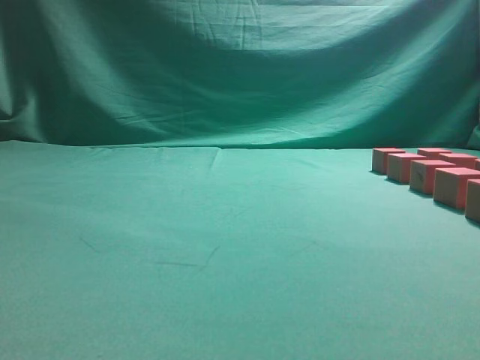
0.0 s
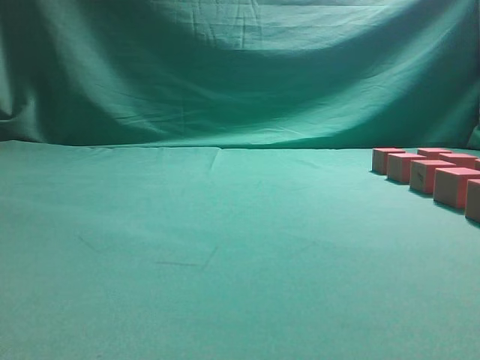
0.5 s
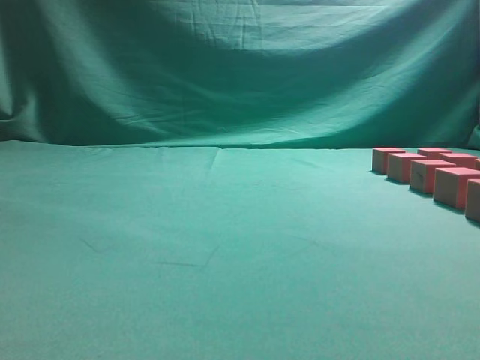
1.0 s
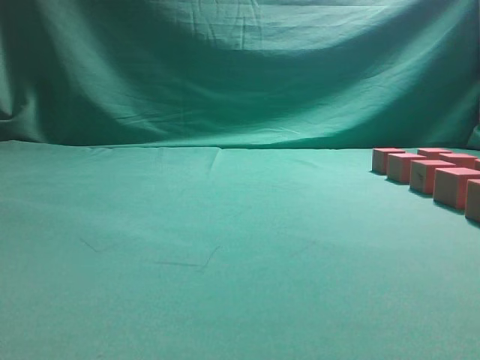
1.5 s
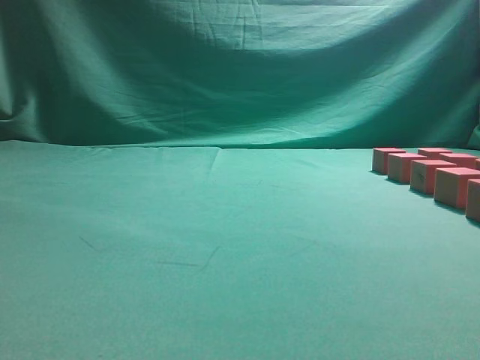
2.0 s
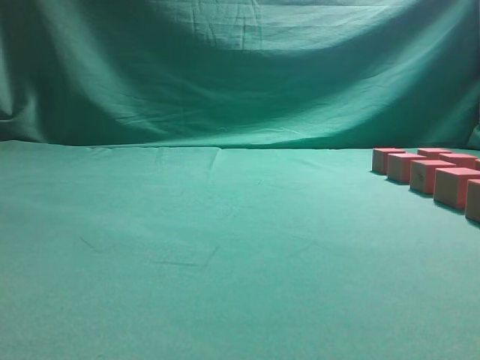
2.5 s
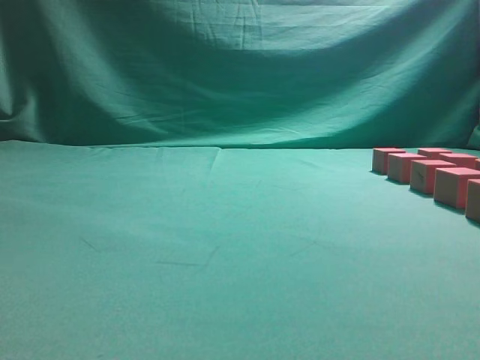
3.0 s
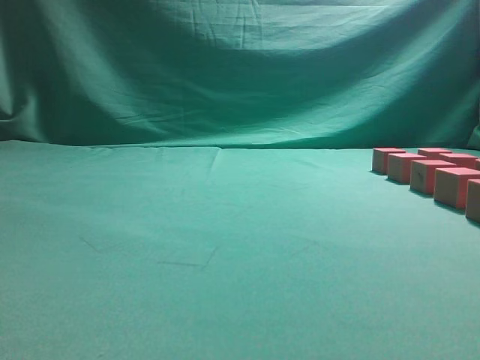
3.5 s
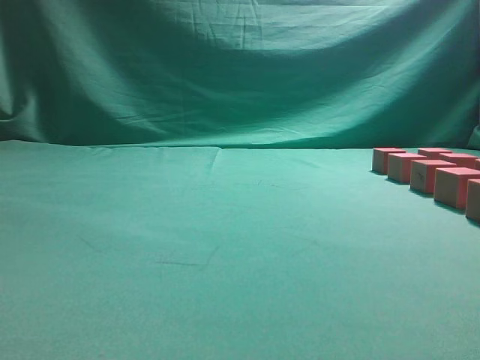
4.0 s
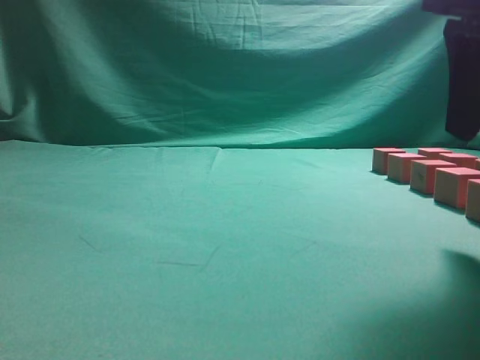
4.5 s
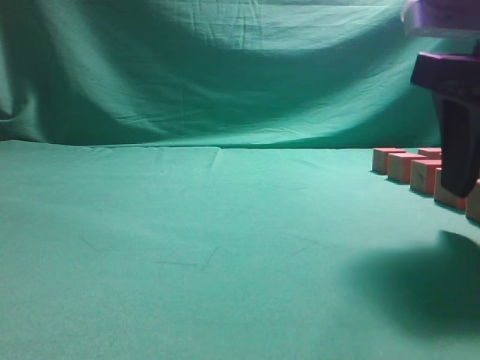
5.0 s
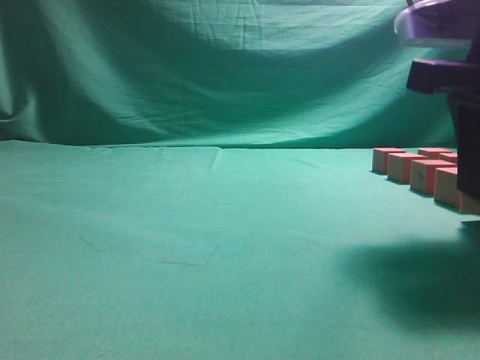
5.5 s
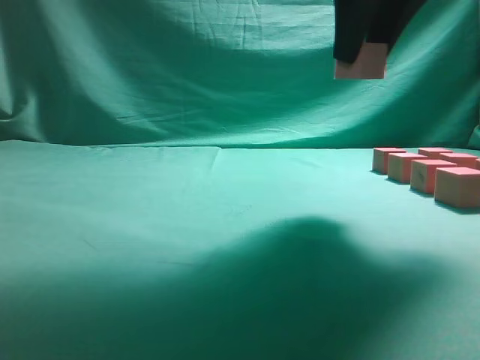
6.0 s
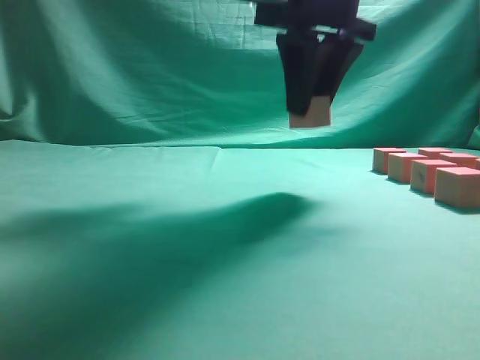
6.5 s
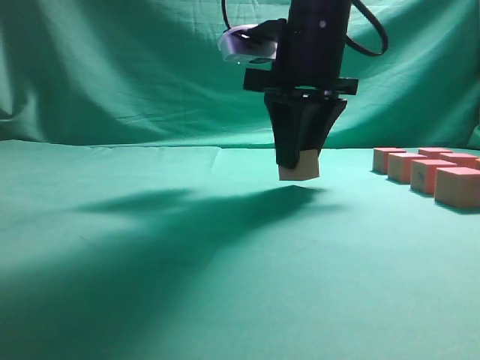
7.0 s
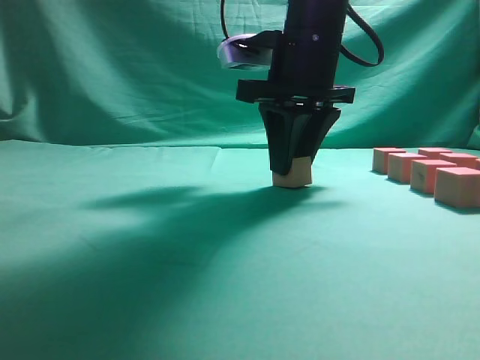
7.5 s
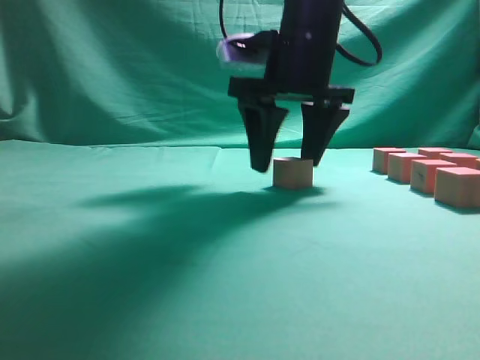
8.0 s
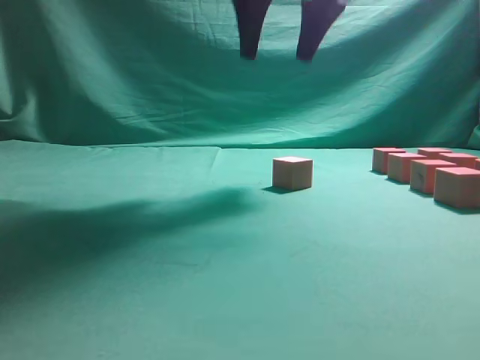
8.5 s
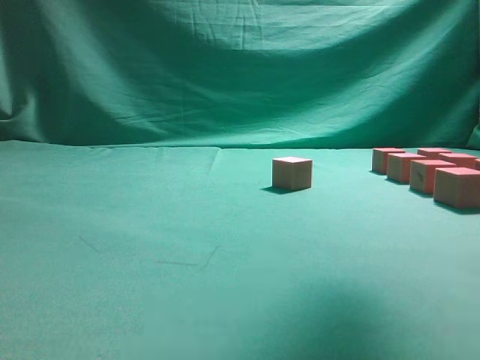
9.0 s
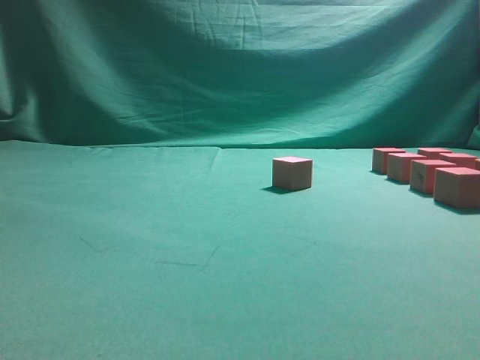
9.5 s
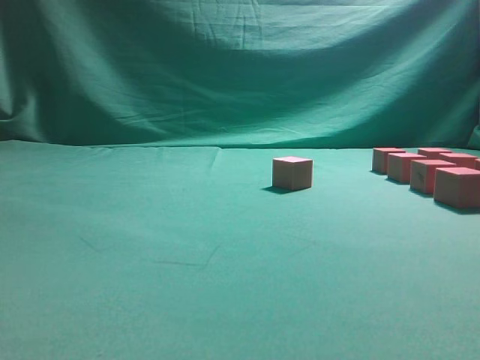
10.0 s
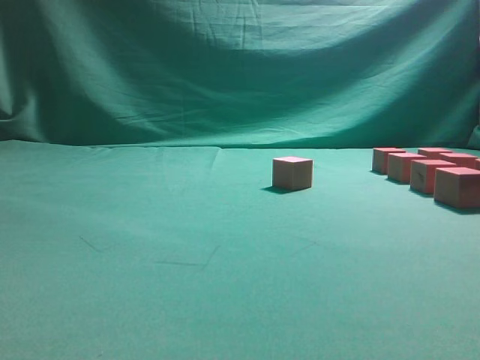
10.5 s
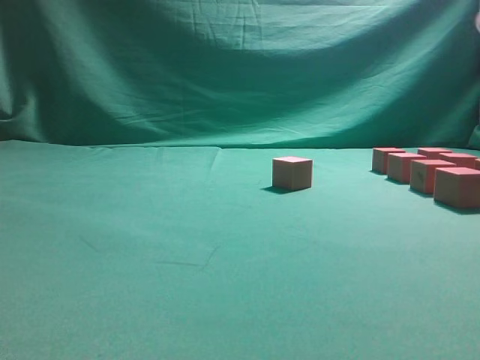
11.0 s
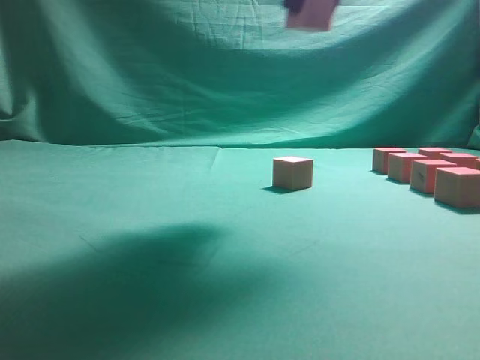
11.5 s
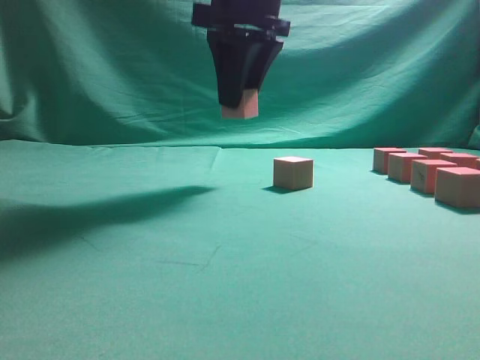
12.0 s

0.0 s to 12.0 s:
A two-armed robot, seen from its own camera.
Task of the whole recording: pick up the multiple cubes in two columns one by one and place them in another position on the table.
Step, 0.0 to 5.5 s: Pick up the block on the table.
Step, 6.0 to 8.0 s: Place the block at the correct position to assemble the letter S.
Step, 8.5 to 11.0 s: Pick up the block on the table.
4.0 to 6.0 s: The right gripper heads forward and to the left, covering approximately 10 cm, reaches roughly 5 cm downward, then returns, and opens up.
6.0 to 8.0 s: The right gripper is displaced downward, forward and to the left by roughly 15 cm, and opens.
8.0 to 10.0 s: The right gripper heads to the right and backward, covering approximately 25 cm.
10.0 to 12.0 s: The right gripper goes roughly 30 cm to the left and forward, and closes.

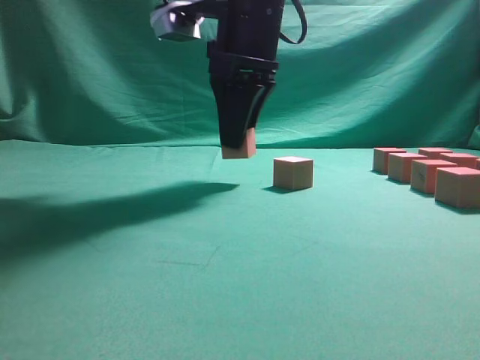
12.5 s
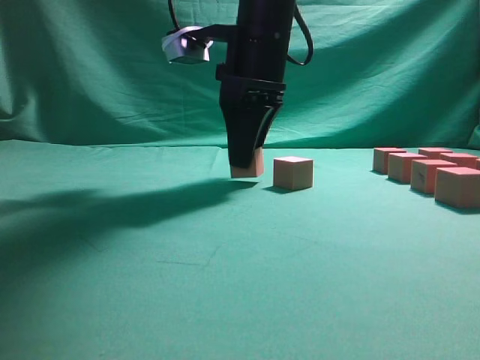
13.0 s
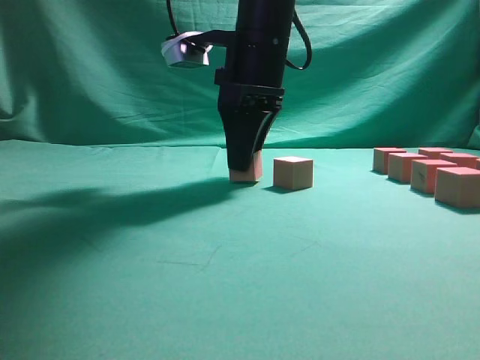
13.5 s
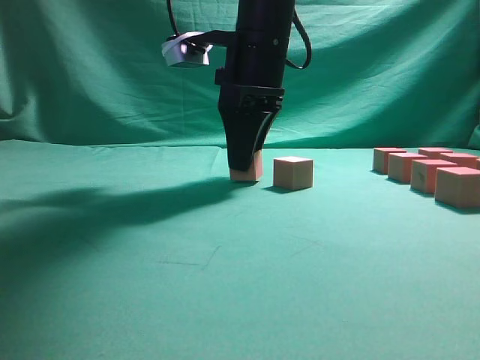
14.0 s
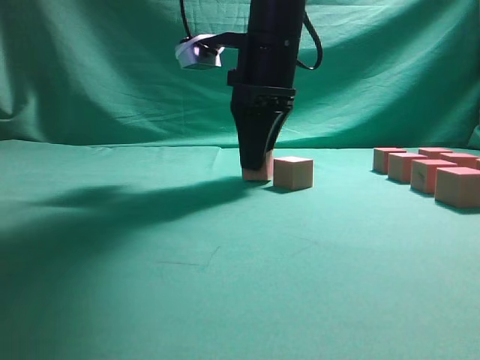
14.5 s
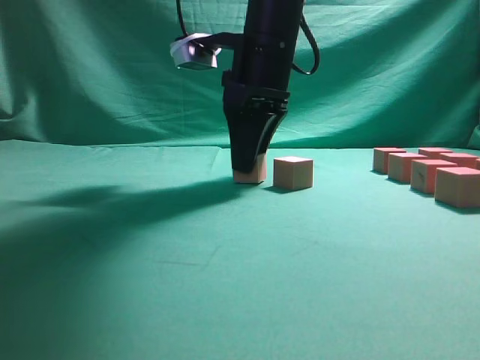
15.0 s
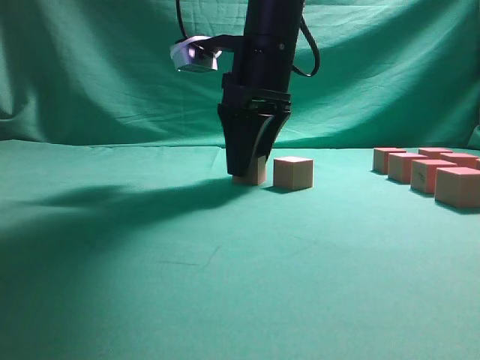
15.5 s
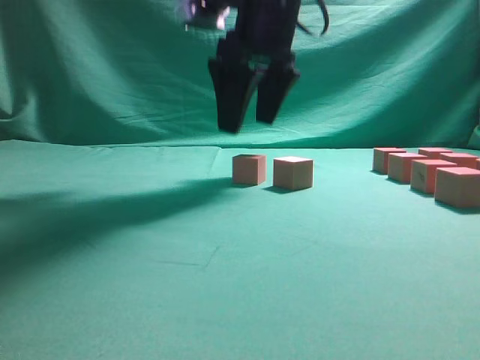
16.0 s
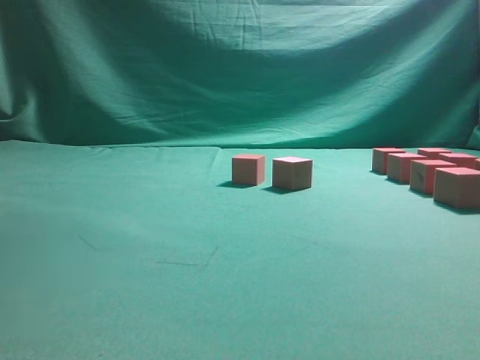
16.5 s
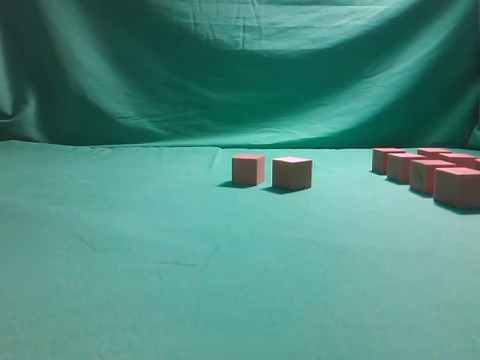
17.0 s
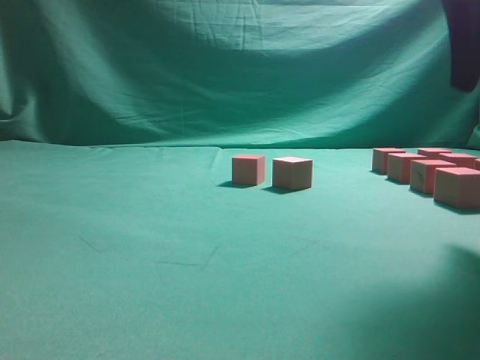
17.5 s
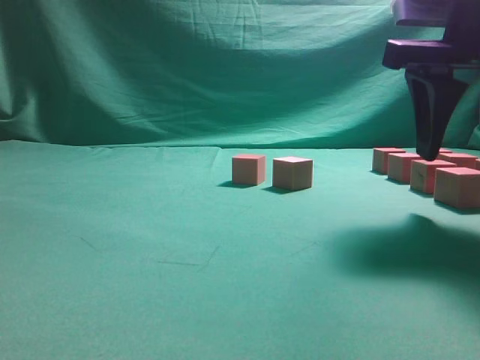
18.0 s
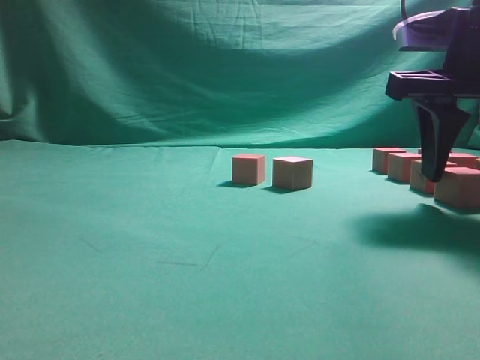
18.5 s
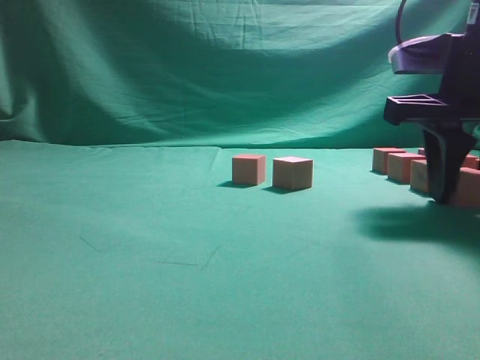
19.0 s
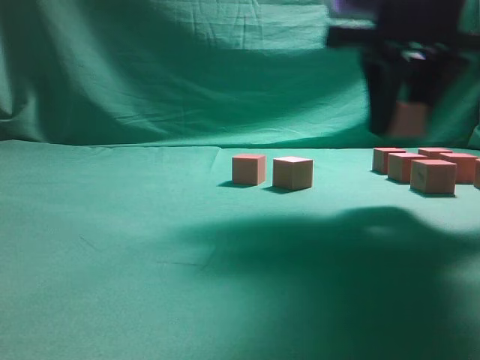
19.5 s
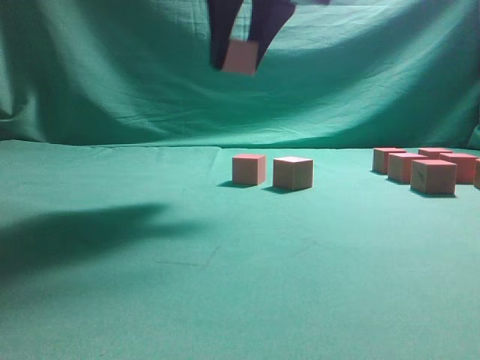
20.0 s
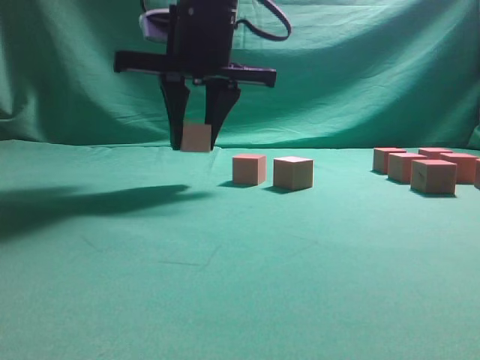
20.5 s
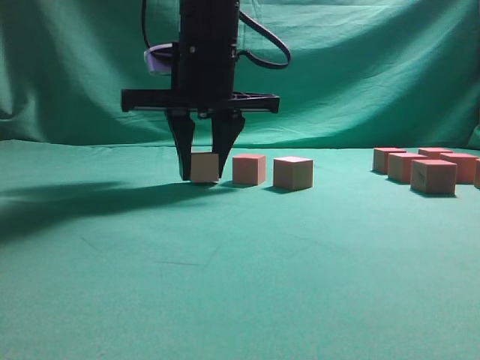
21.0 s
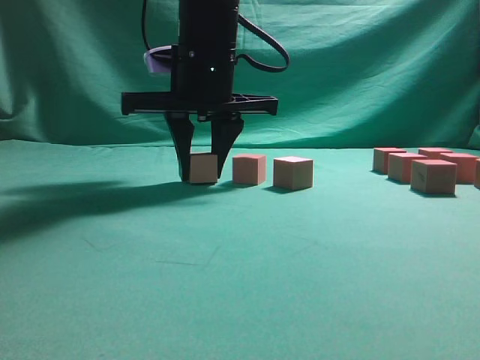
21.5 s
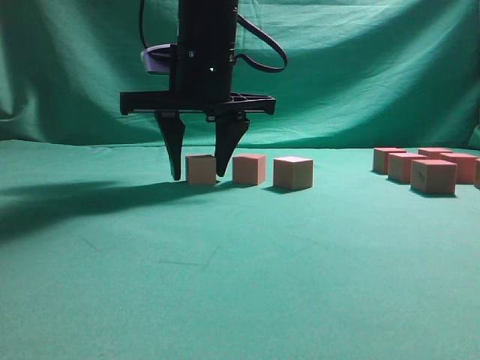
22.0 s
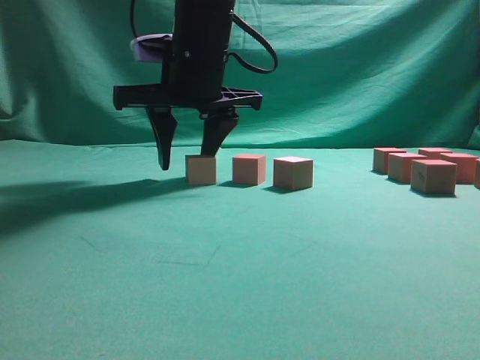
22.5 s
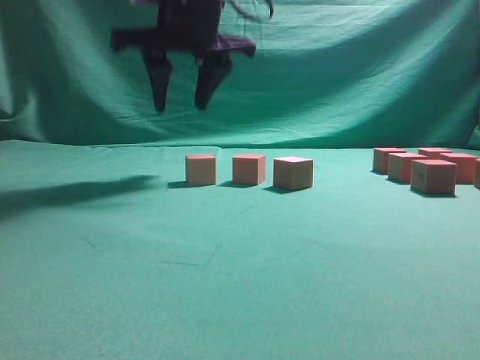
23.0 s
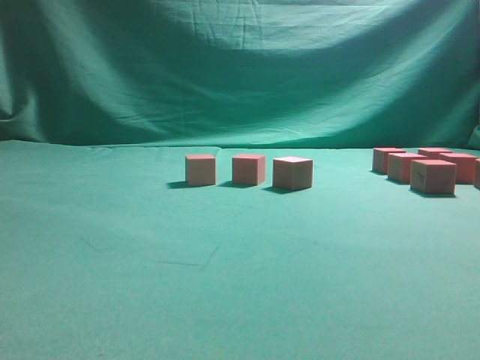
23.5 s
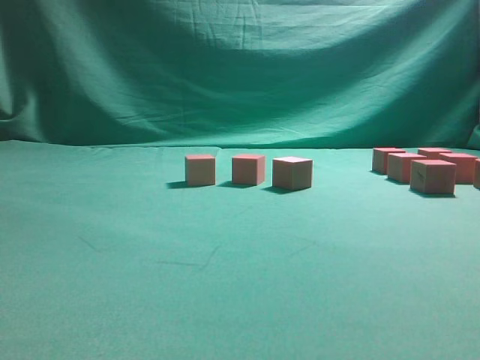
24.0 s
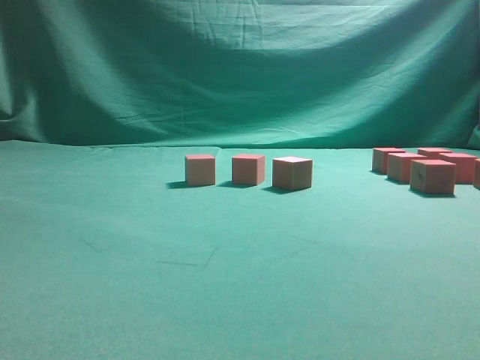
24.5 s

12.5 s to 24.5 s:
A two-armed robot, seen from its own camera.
Task of the whole recording: pick up the multiple cubes in two columns one by one and place them in another position on the table.
Step, 12.5 to 16.0 s: Place the block at the correct position to assemble the letter S.
Step, 16.5 to 19.0 s: Pick up the block on the table.
Step, 19.5 to 23.0 s: Place the block at the correct position to assemble the letter S.
12.5 to 14.5 s: The grippers make only small movements.
14.5 to 16.5 s: The right gripper heads upward, covering roughly 25 cm, and opens up.
16.5 to 18.5 s: The right gripper is displaced downward and to the right by about 25 cm.
18.5 to 20.5 s: The right gripper heads to the left, covering roughly 25 cm.
20.5 to 22.5 s: The grippers stay close to where they were, moving slightly.
22.5 to 24.5 s: The right gripper travels to the right and backward by roughly 35 cm.

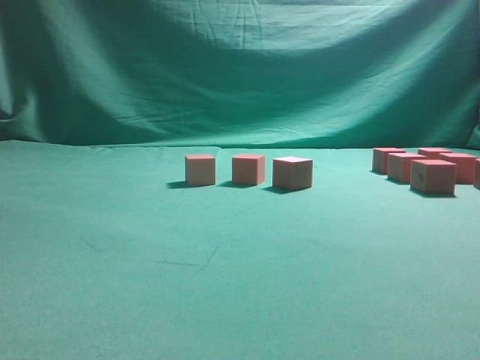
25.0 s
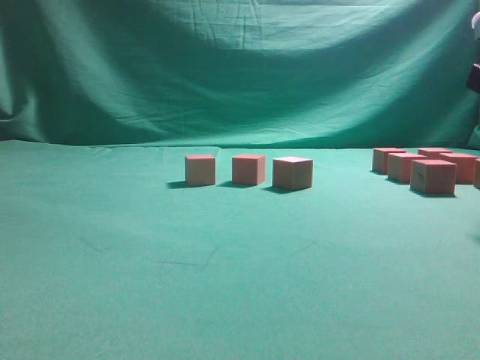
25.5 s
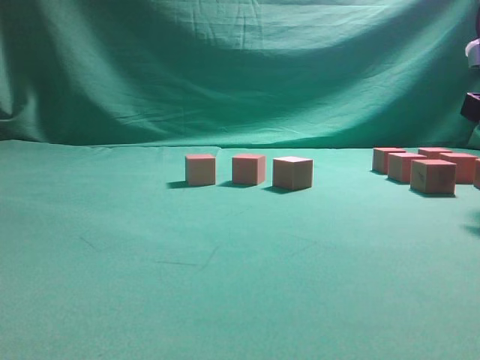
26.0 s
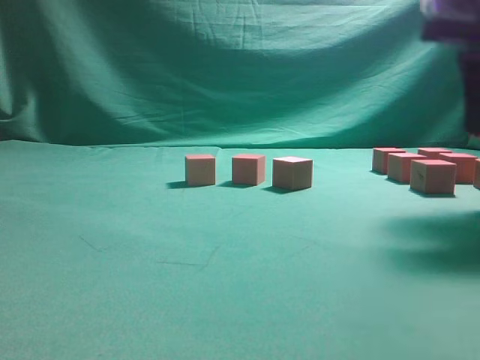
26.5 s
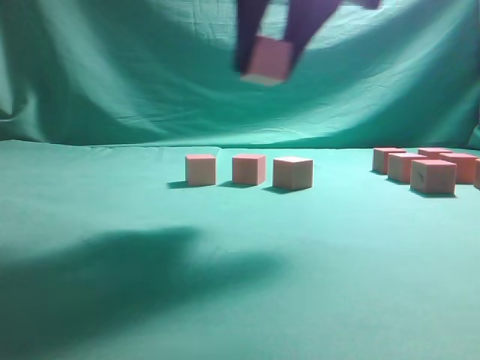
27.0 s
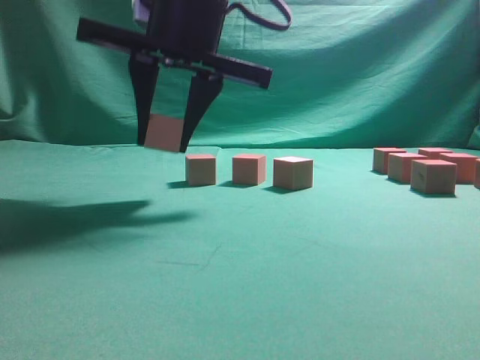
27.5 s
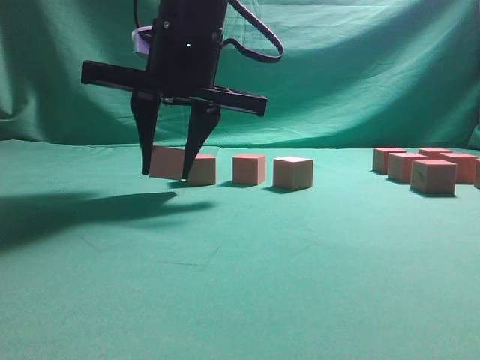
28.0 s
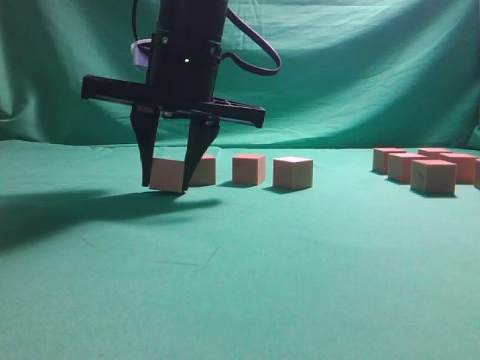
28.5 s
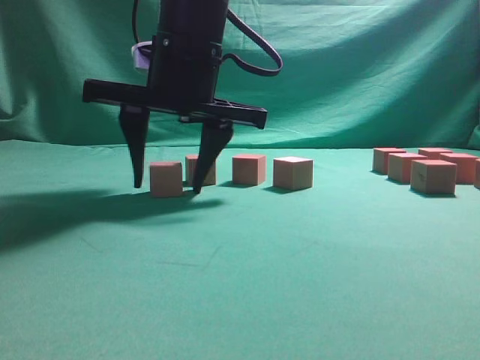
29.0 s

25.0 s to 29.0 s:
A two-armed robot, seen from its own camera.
Task of the whole recording: pick up the multiple cubes in two columns one by one and place them in another position on the table.
25.0 to 27.0 s: The right gripper is displaced to the left by approximately 20 cm.
27.0 to 29.0 s: The right gripper goes roughly 15 cm to the left and downward.
